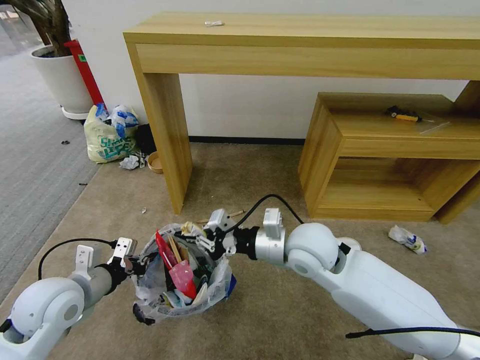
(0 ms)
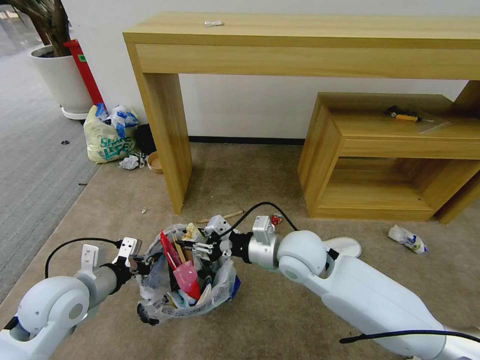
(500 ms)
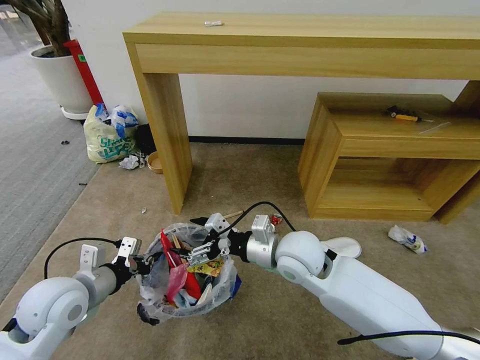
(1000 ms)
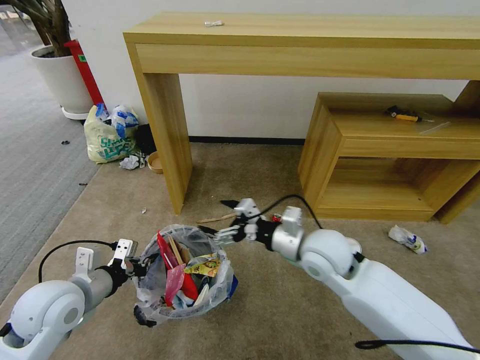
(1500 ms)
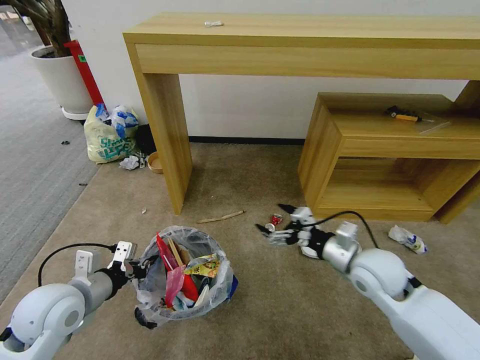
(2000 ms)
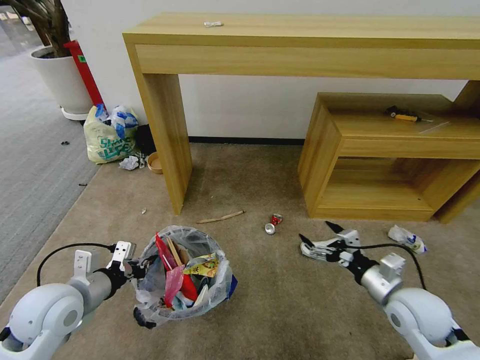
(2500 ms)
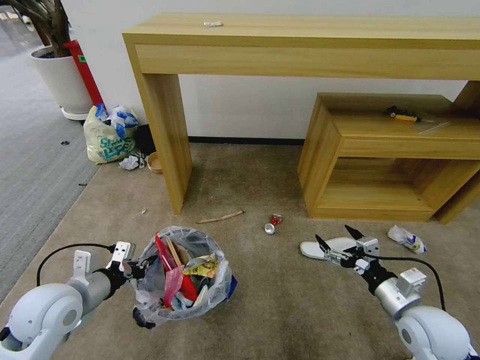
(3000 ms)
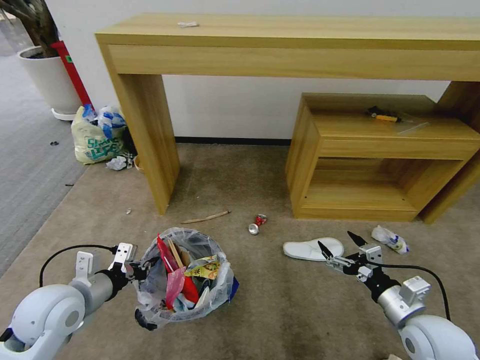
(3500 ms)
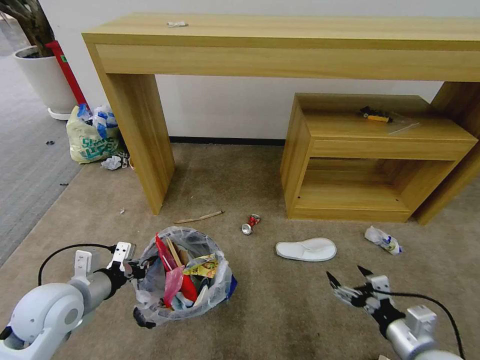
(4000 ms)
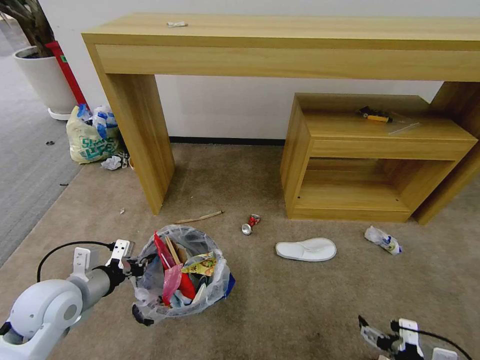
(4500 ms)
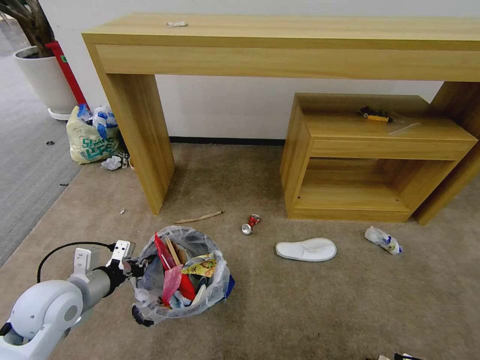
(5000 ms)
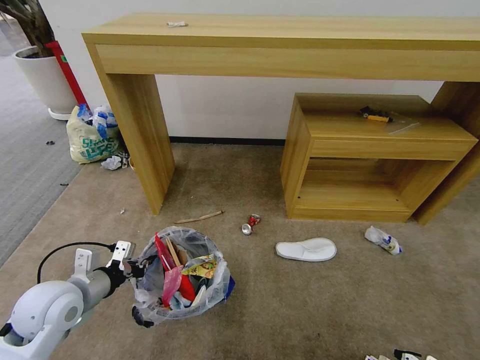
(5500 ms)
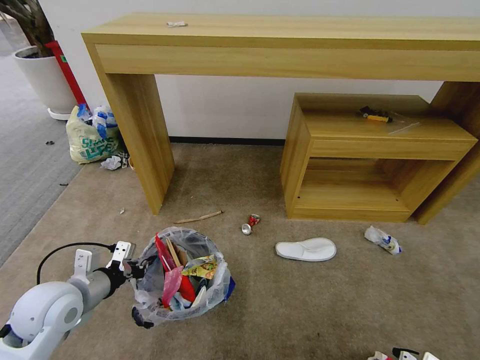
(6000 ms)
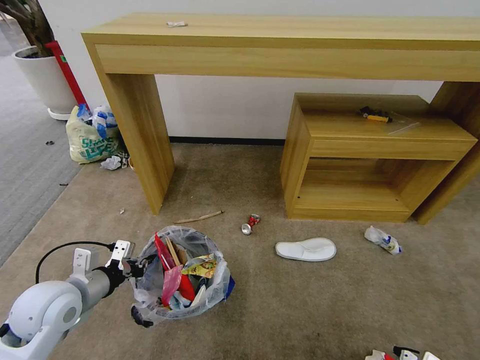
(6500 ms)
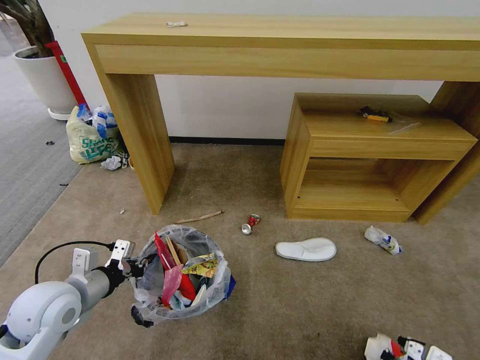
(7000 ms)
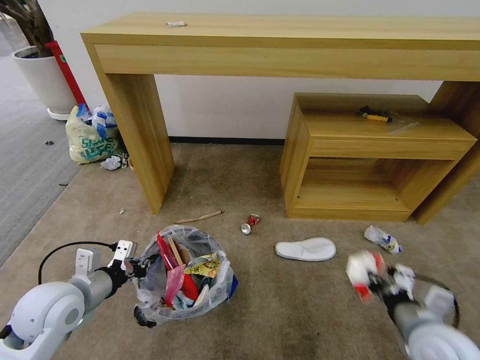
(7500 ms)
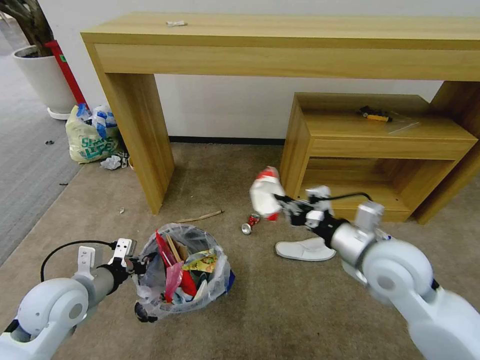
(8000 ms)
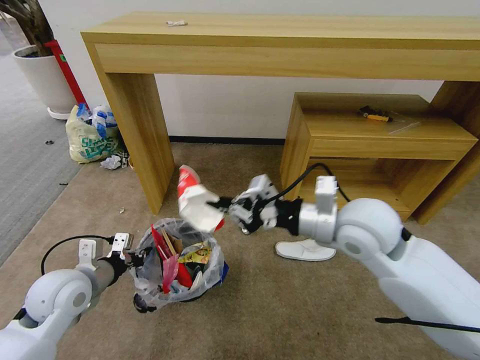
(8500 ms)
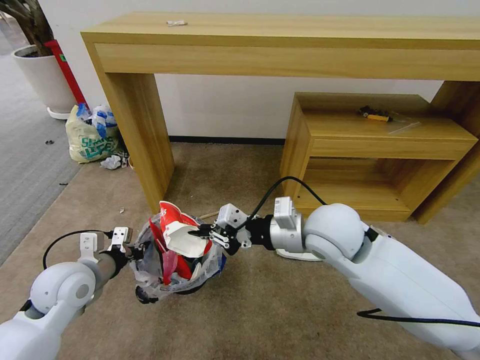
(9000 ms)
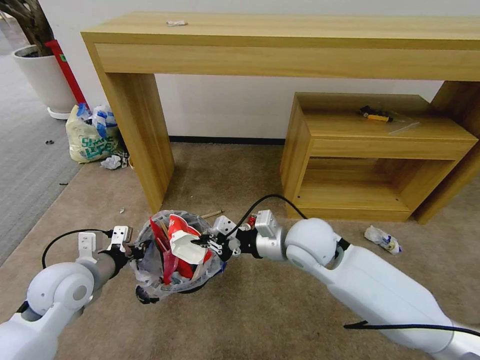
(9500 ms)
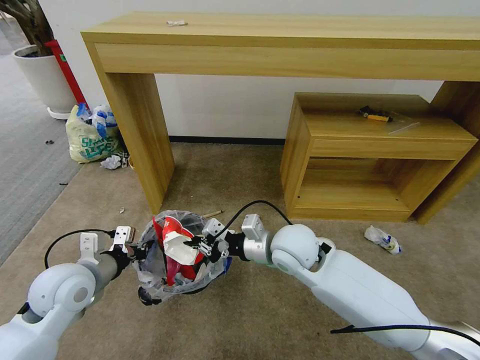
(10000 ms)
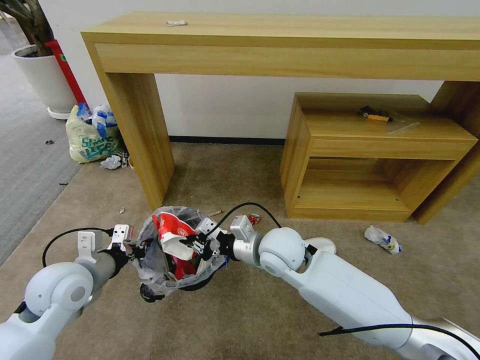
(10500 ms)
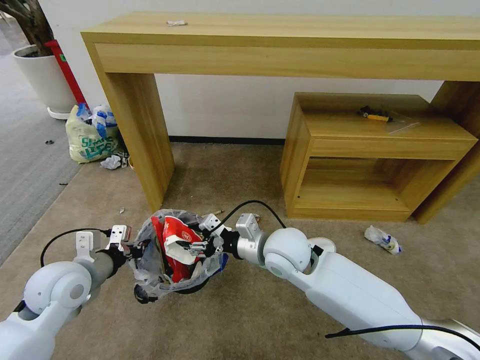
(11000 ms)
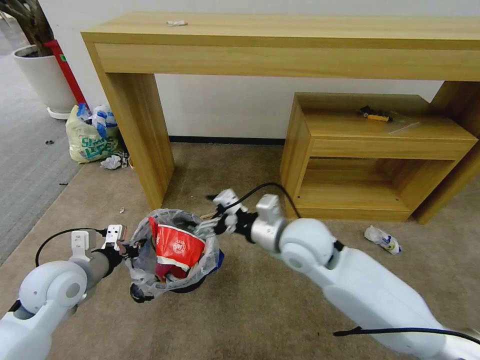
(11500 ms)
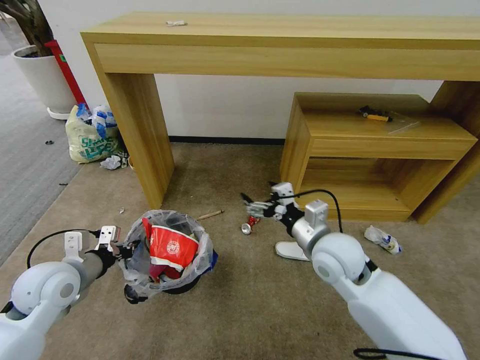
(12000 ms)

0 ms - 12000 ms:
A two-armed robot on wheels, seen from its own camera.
Task of the whole recording: Pick up the trash bin and place the garbage on the floor into it.
0 ms - 2000 ms: The right gripper shifts approximately 15 cm to the right and downward, and opens.
2000 ms - 4000 ms: The right gripper goes about 20 cm backward, to the right and downward.
4000 ms - 6000 ms: The right gripper goes roughly 10 cm downward, and closes up.
6000 ms - 8000 ms: The right gripper is displaced upward, forward and to the left by roughly 30 cm, and closes its fingers.
8000 ms - 10000 ms: The right gripper shifts roughly 15 cm to the left and forward.
10000 ms - 12000 ms: The right gripper moves to the right, roughly 10 cm, and opens up.

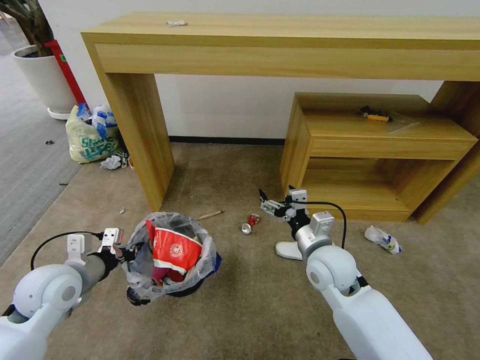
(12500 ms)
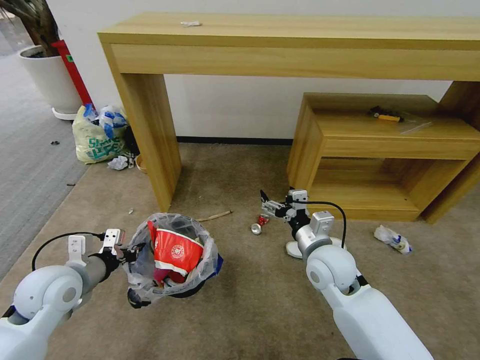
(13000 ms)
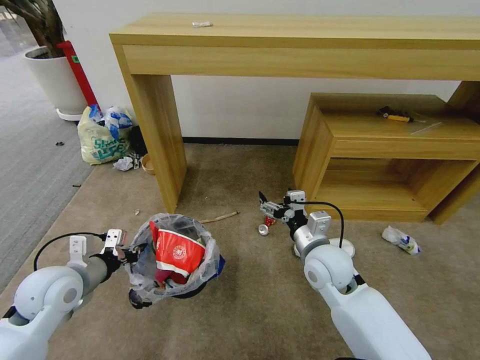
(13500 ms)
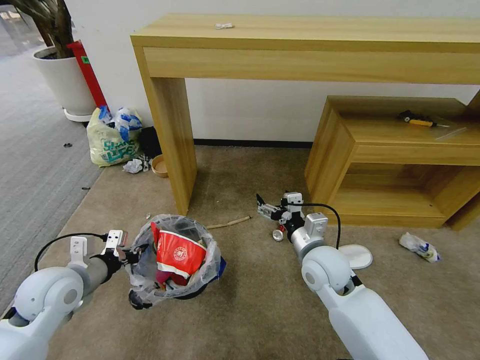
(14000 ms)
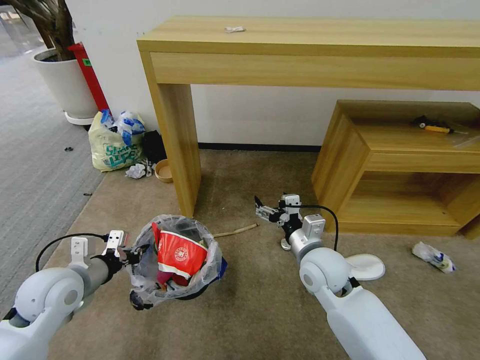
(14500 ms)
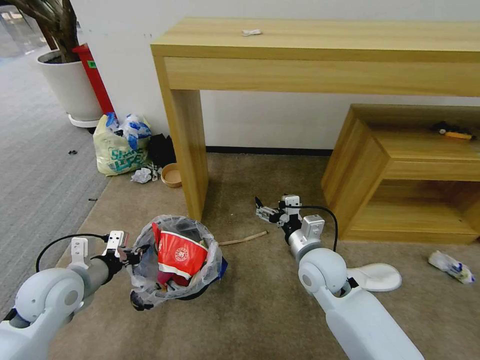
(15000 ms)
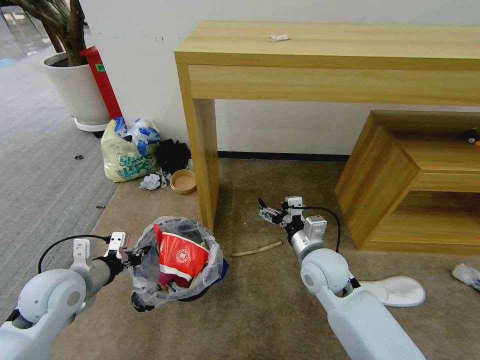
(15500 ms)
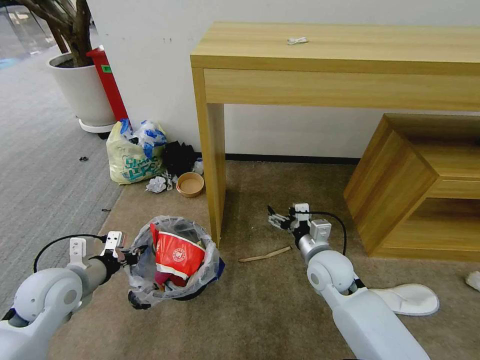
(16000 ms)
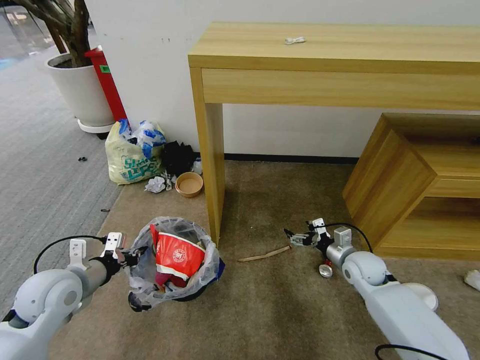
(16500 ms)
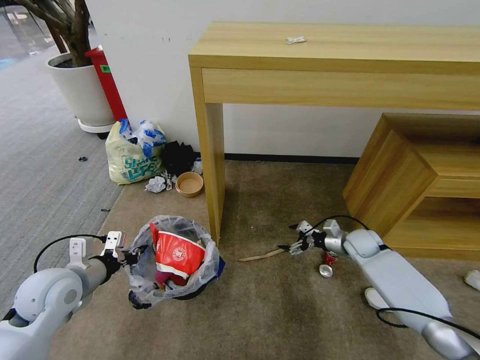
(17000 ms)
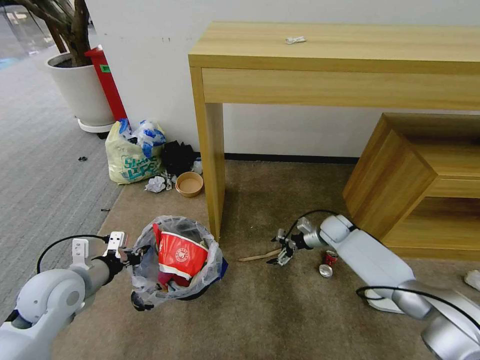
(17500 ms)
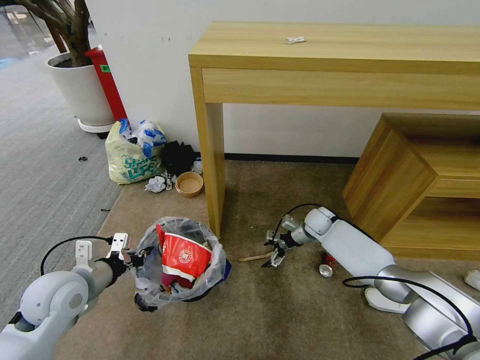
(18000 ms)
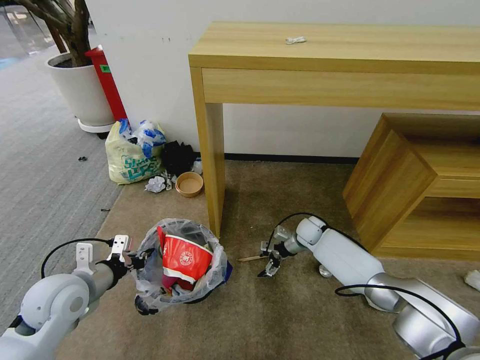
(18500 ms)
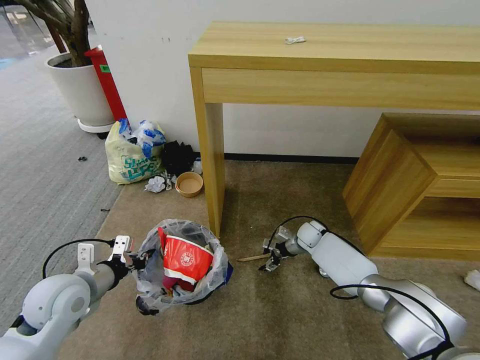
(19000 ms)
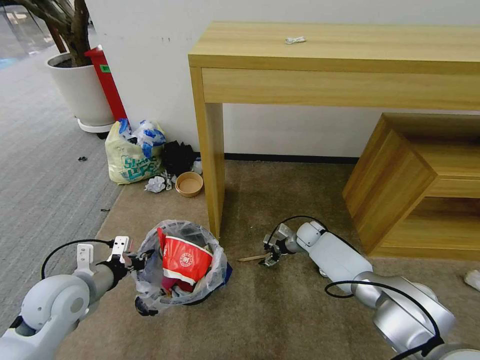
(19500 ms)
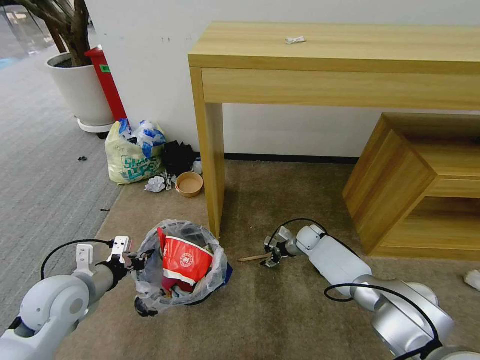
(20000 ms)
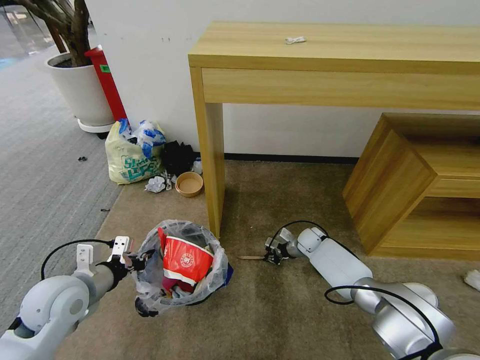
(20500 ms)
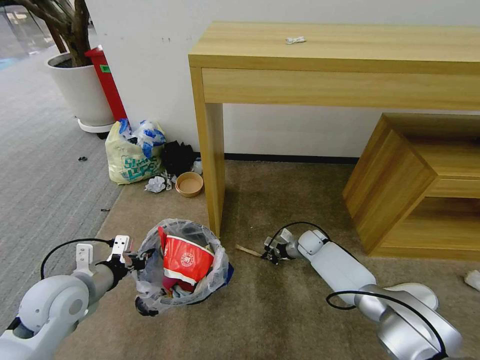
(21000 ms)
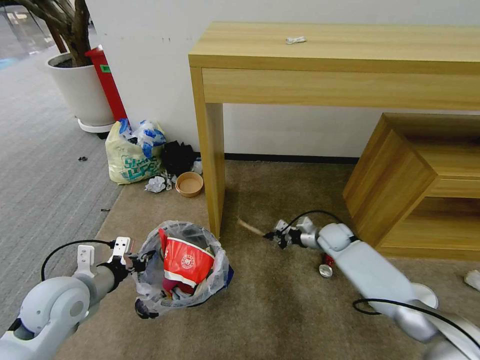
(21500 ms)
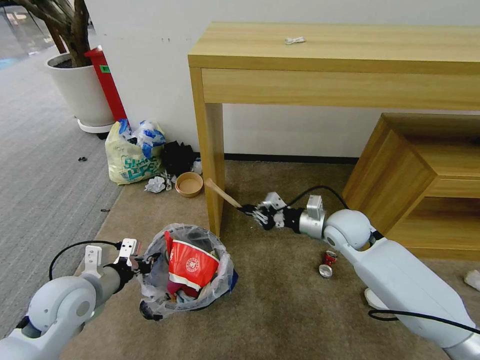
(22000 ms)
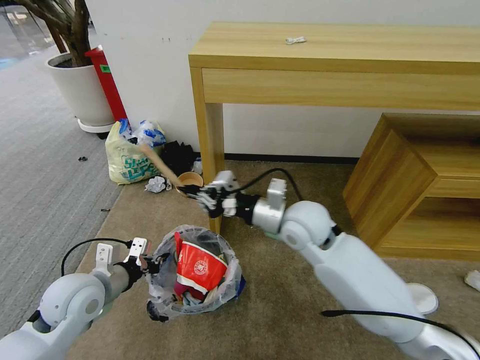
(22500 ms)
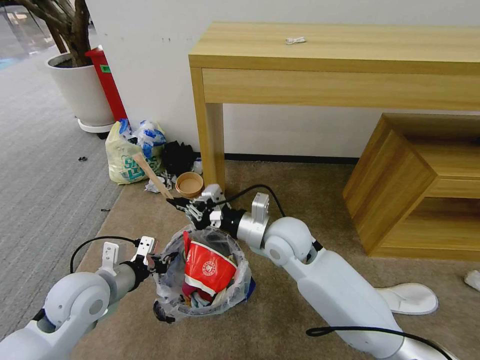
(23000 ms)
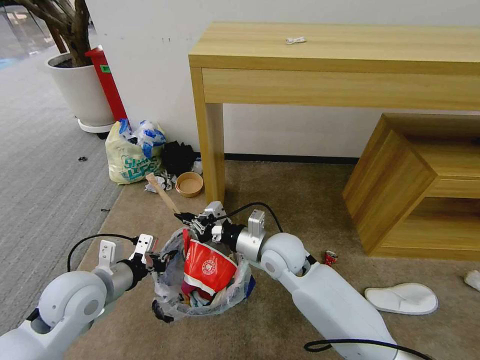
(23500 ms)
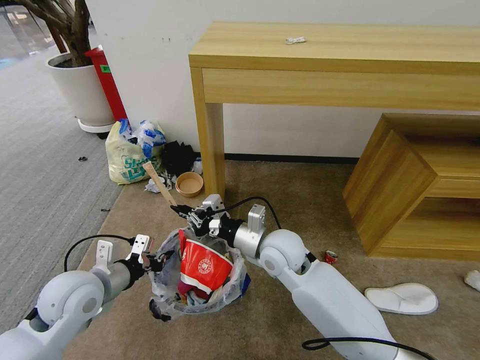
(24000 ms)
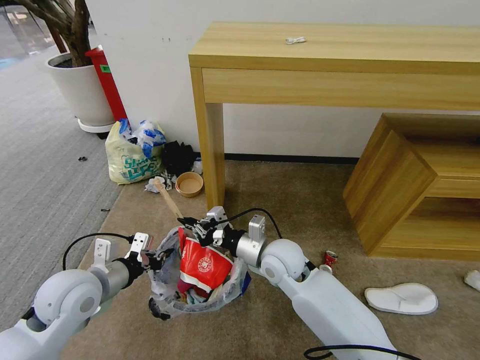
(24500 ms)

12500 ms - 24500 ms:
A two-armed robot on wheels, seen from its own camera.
Task of the whole recording: Pick up the trash bin and place the garbage on the floor into it.
14500 ms - 16500 ms: The right gripper moves to the right and downward, approximately 20 cm.
16500 ms - 18500 ms: The right gripper travels forward and to the left by about 15 cm.
18500 ms - 20500 ms: The right gripper ends up some 5 cm from where it was, and closes.
20500 ms - 22500 ms: The right gripper heads upward, backward and to the left, covering about 35 cm.
22500 ms - 24500 ms: The right gripper travels downward by approximately 10 cm.

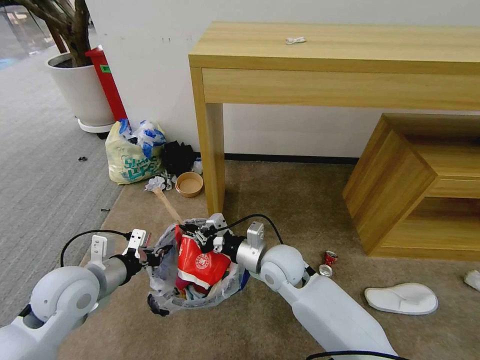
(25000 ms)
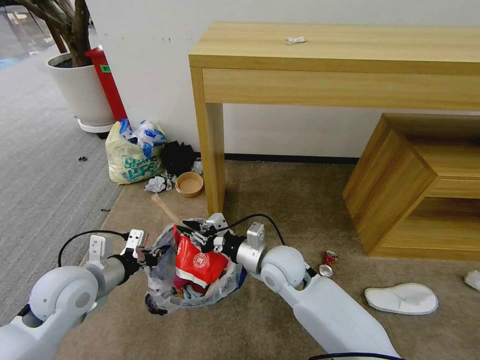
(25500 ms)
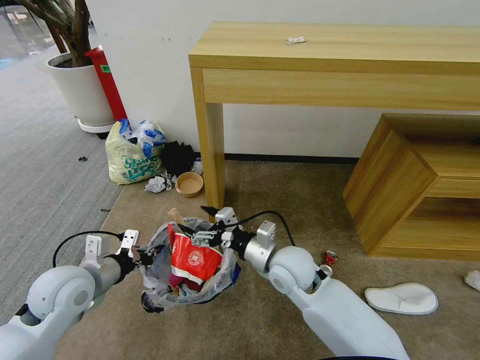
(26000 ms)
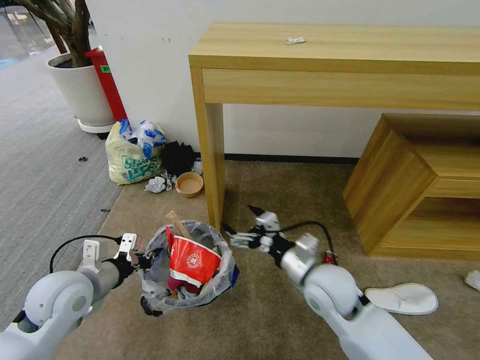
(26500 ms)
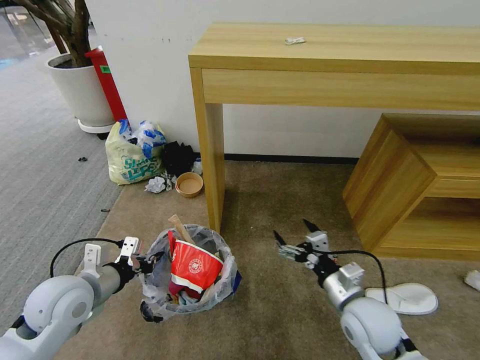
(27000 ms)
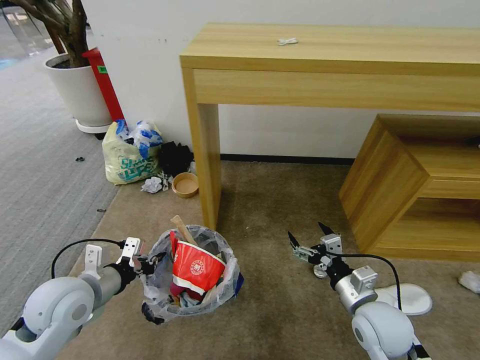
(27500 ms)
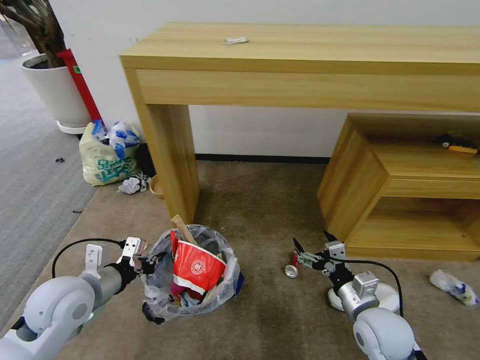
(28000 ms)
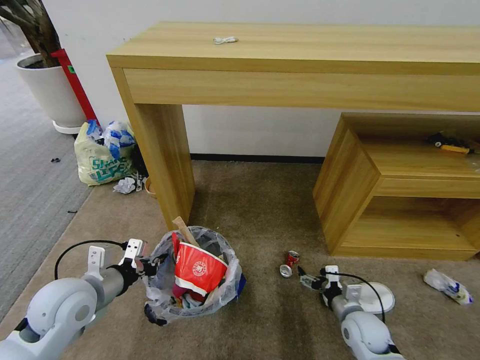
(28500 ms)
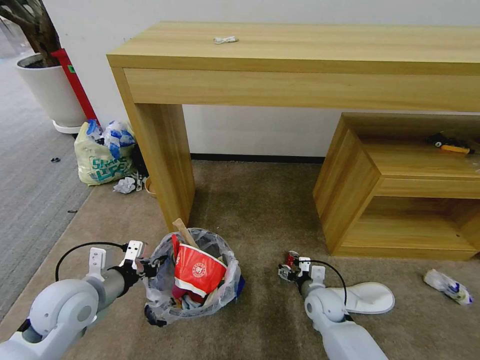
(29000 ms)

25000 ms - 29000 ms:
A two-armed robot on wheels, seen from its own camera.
Task of the whole recording: Pick up the trash bin and place the garbage on the floor into it.
25000 ms - 27000 ms: The right gripper heads to the right and backward, covering roughly 20 cm, and opens its fingers.
27000 ms - 29000 ms: The right gripper heads downward and forward, covering roughly 20 cm.
